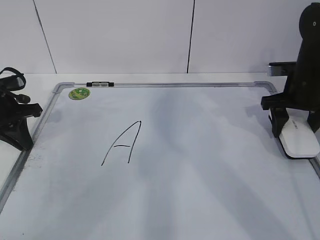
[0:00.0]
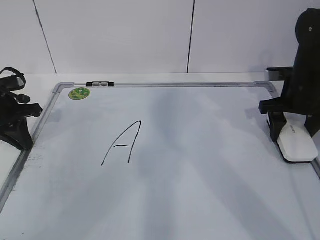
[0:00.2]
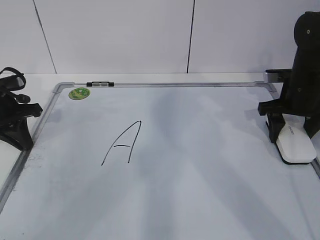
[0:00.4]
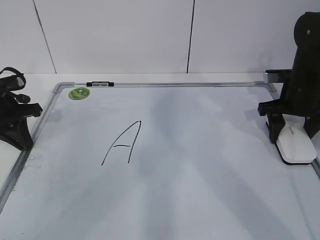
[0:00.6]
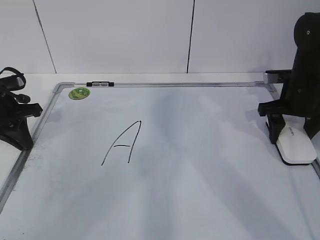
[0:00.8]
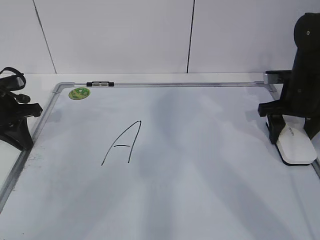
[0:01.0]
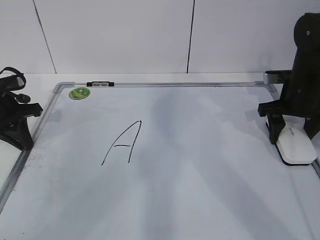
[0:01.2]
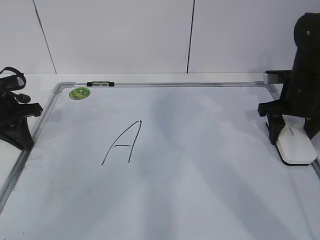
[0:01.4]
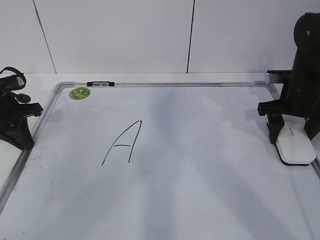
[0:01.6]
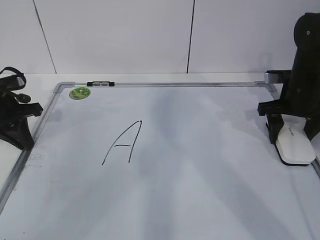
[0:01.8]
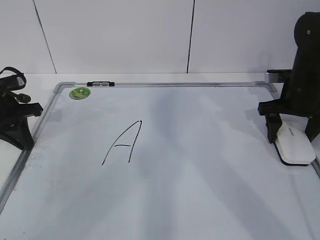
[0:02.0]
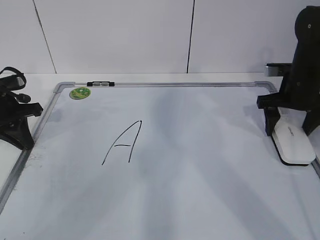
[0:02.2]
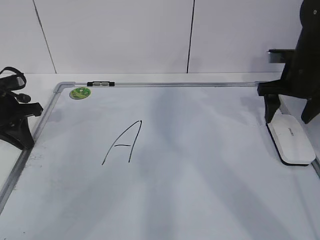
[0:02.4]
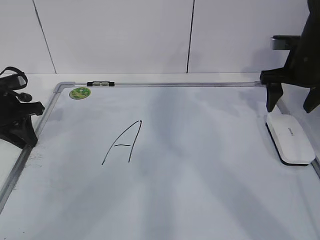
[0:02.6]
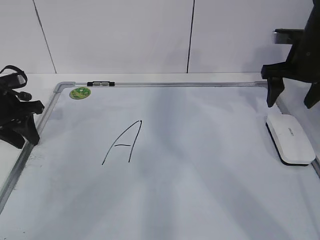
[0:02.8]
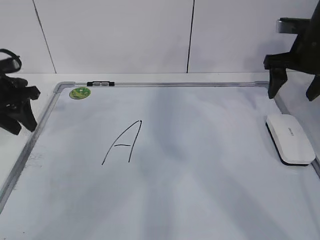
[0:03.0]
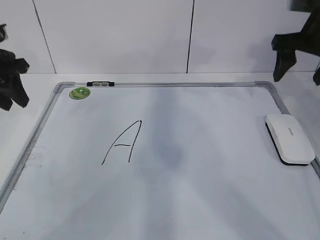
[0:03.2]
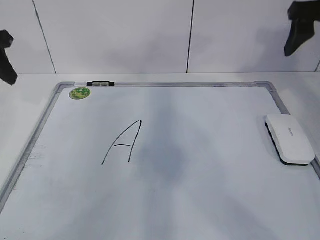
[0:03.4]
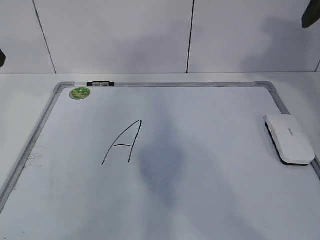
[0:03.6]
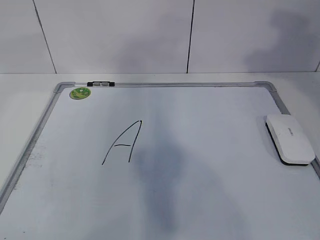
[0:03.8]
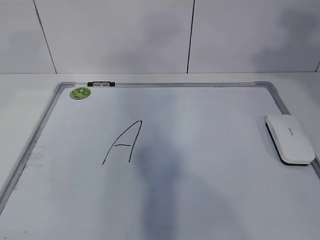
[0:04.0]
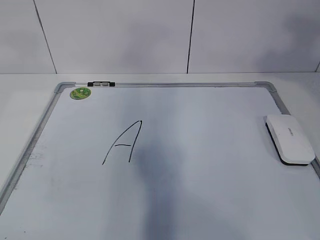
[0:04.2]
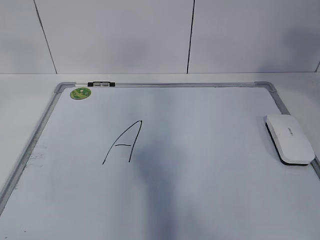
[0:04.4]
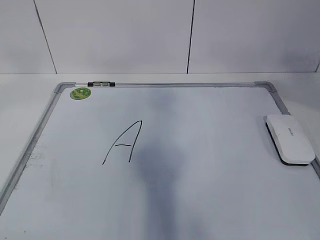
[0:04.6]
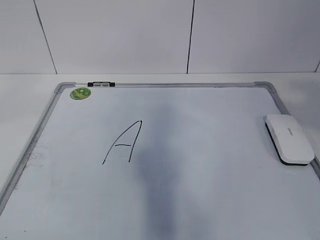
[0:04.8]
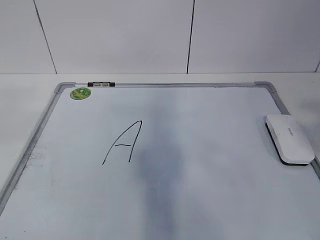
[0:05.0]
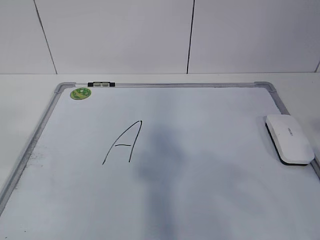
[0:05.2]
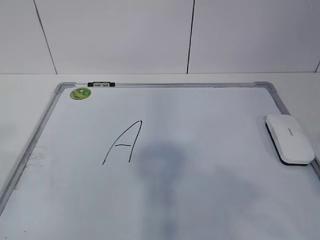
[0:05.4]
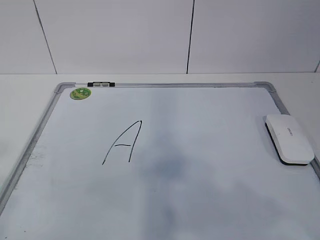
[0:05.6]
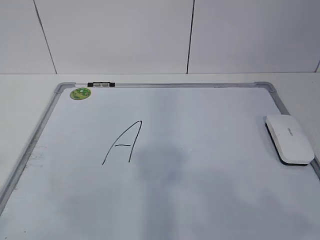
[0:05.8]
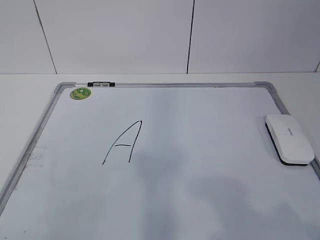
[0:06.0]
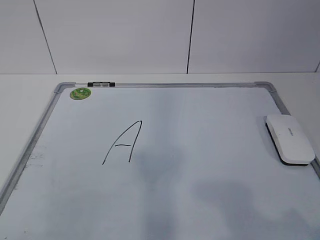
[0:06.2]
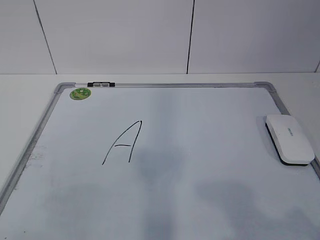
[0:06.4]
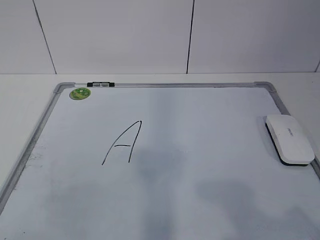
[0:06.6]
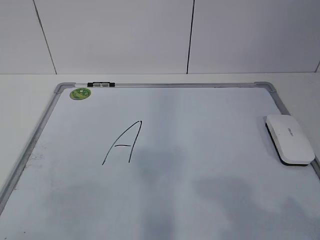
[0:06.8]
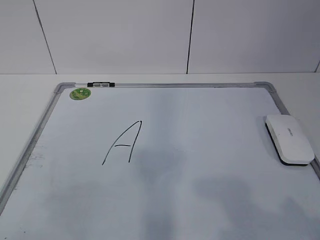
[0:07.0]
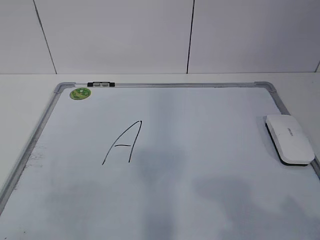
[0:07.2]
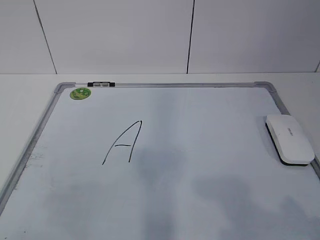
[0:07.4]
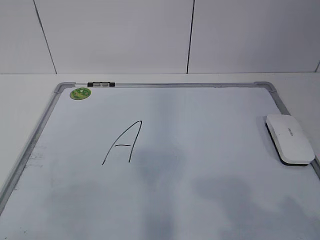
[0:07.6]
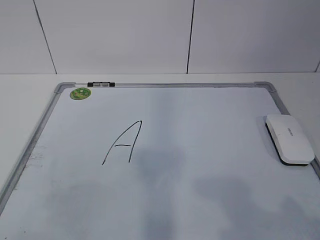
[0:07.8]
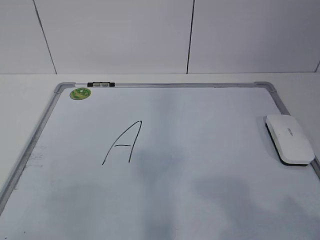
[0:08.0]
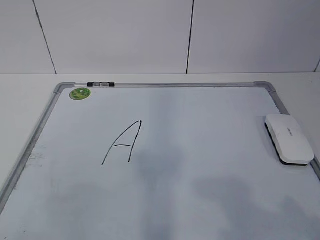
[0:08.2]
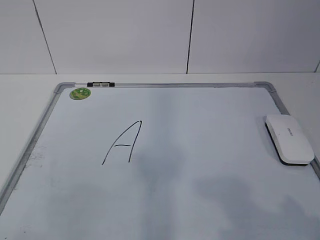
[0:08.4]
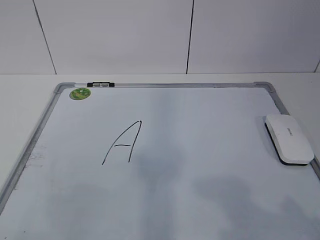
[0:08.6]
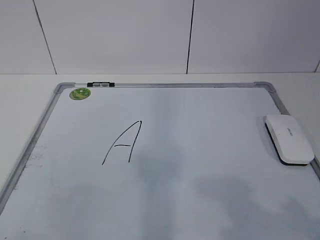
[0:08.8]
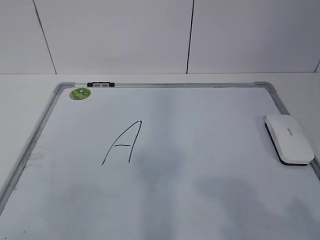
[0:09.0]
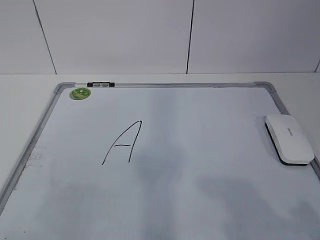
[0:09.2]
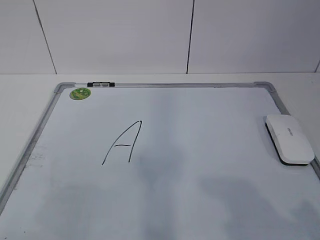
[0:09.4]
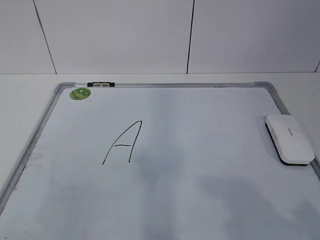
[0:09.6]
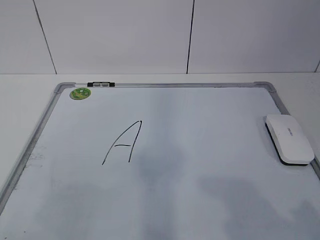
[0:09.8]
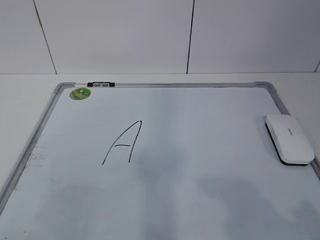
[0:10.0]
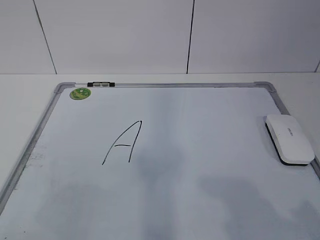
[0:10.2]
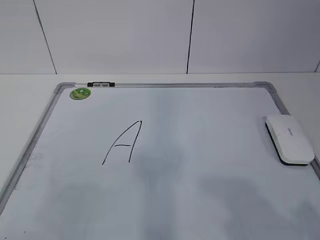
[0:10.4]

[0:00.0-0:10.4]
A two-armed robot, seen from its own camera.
Task of the whole recording: pick up the eraser on the blackboard and erase the letter "a".
0:00.0 to 0:01.4: The grippers move only a little.
0:01.4 to 0:03.0: The left gripper opens up. The right gripper goes roughly 10 cm upward, and opens its fingers.
0:03.0 to 0:04.4: The left gripper is displaced upward and backward by approximately 35 cm, while the right gripper travels backward and upward by some 35 cm, and closes up.
0:04.4 to 0:06.0: Both grippers travel together downward and backward, approximately 25 cm.
